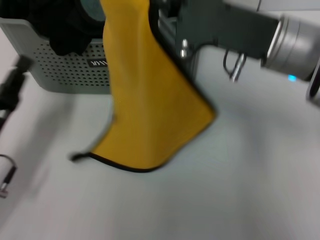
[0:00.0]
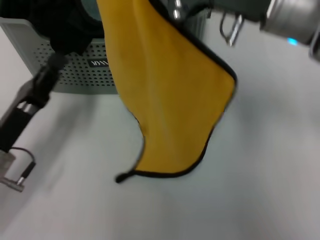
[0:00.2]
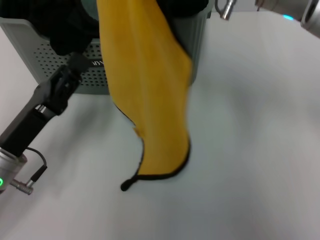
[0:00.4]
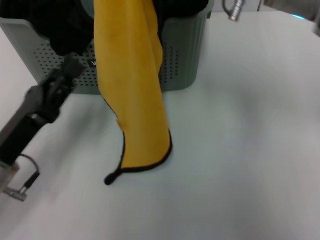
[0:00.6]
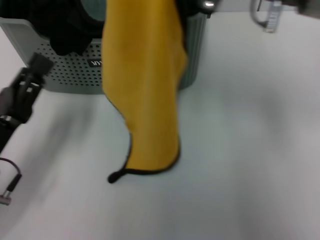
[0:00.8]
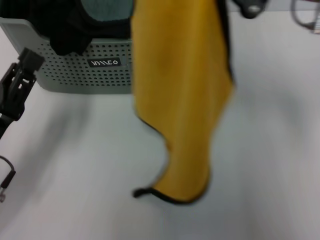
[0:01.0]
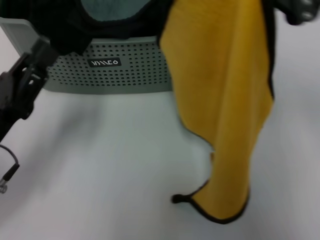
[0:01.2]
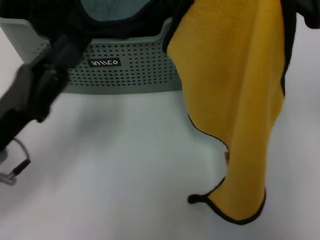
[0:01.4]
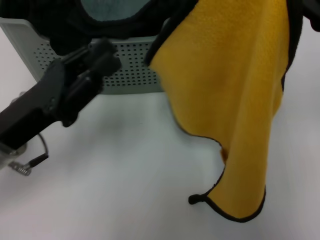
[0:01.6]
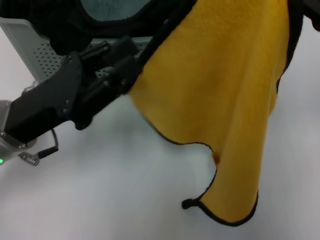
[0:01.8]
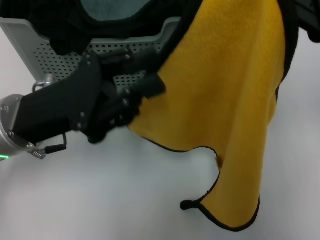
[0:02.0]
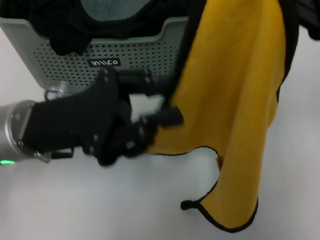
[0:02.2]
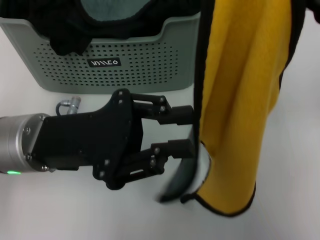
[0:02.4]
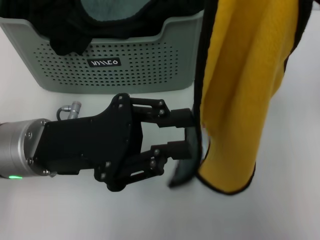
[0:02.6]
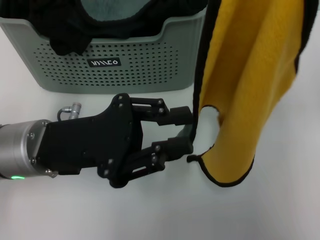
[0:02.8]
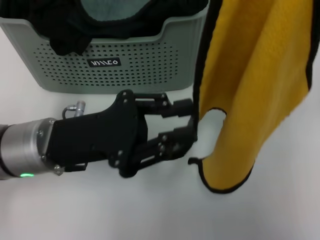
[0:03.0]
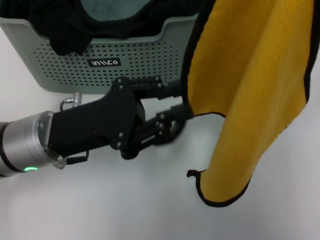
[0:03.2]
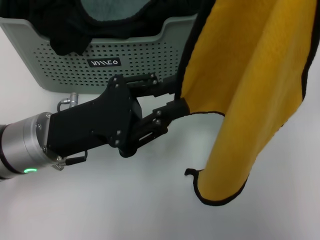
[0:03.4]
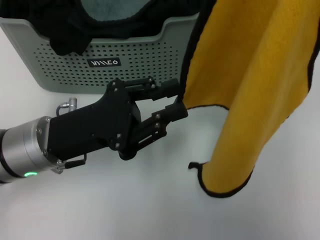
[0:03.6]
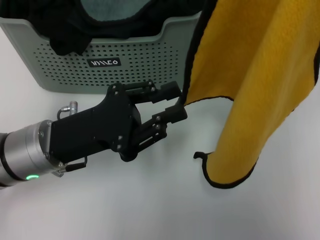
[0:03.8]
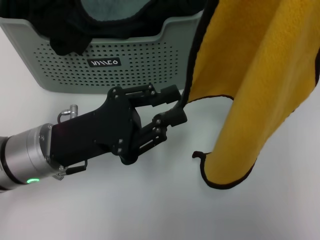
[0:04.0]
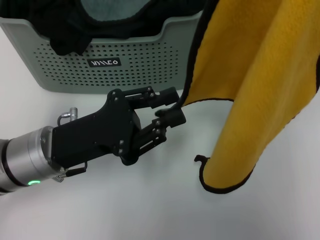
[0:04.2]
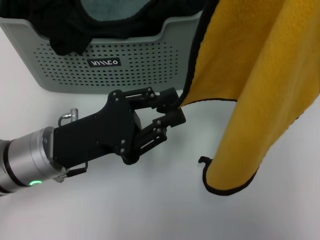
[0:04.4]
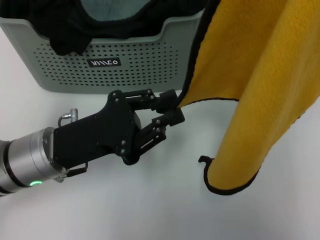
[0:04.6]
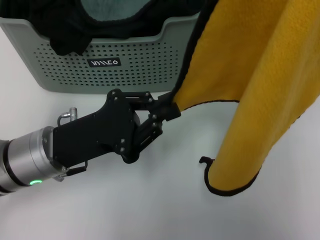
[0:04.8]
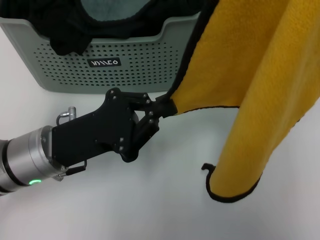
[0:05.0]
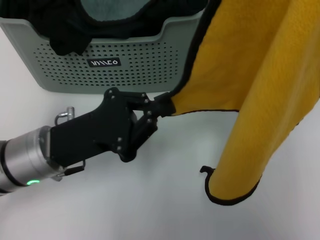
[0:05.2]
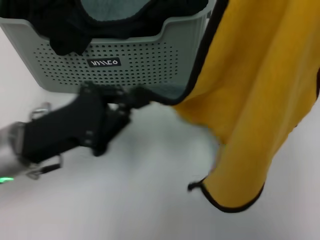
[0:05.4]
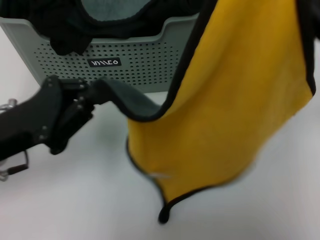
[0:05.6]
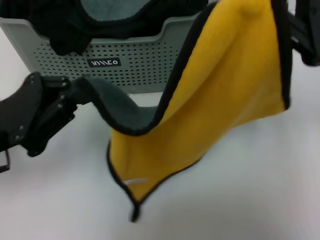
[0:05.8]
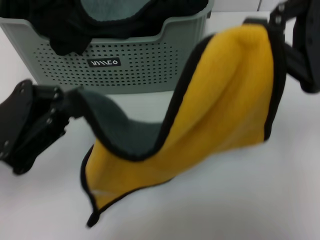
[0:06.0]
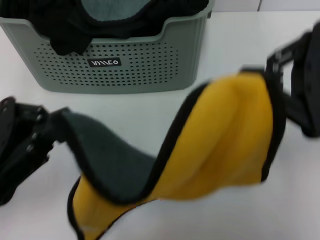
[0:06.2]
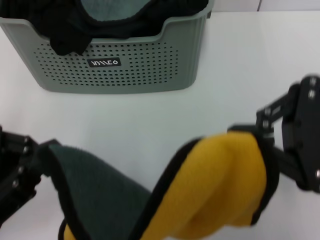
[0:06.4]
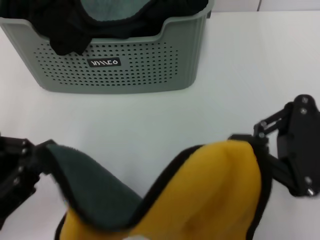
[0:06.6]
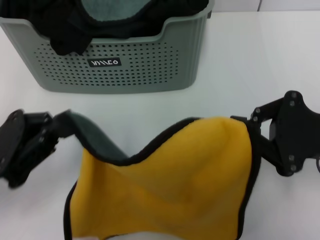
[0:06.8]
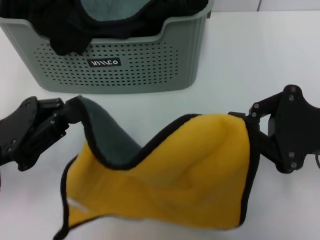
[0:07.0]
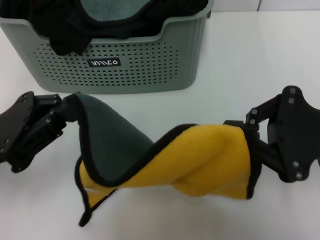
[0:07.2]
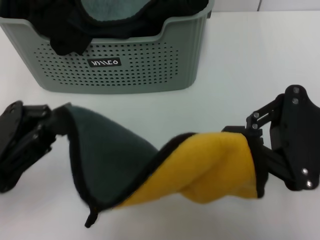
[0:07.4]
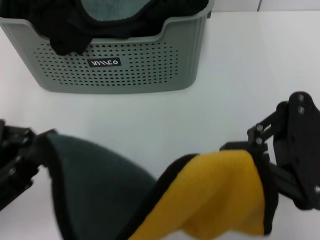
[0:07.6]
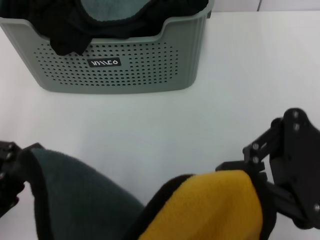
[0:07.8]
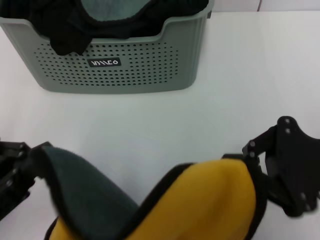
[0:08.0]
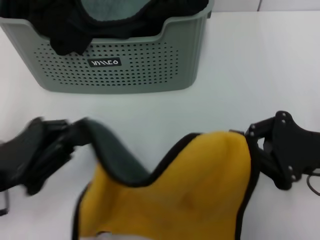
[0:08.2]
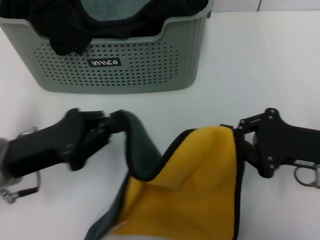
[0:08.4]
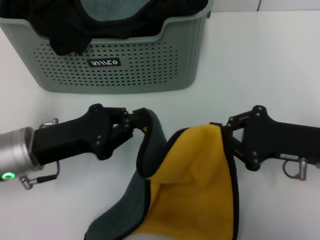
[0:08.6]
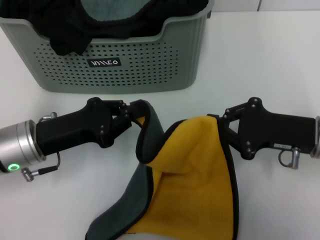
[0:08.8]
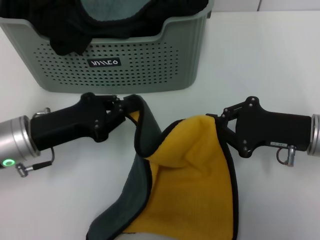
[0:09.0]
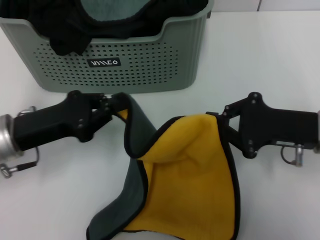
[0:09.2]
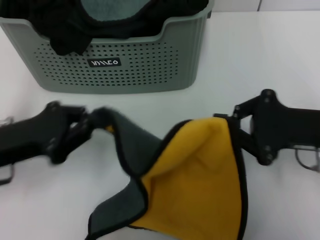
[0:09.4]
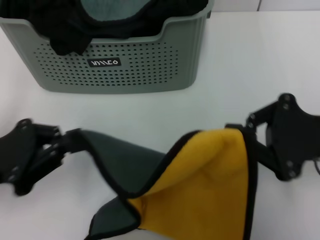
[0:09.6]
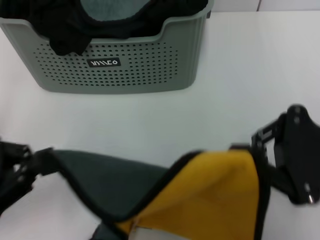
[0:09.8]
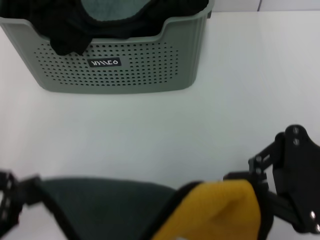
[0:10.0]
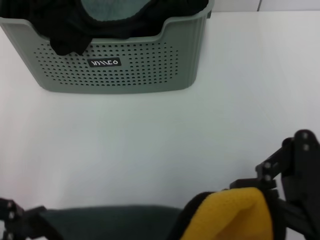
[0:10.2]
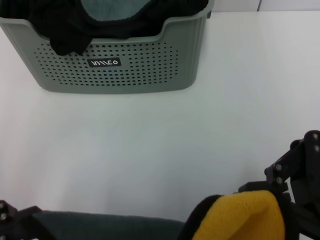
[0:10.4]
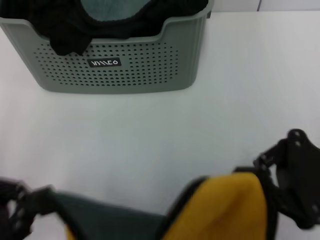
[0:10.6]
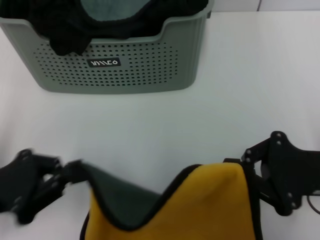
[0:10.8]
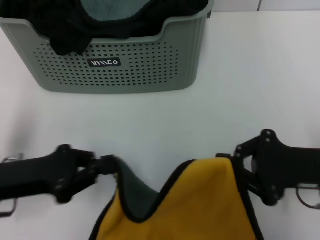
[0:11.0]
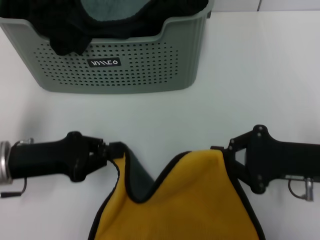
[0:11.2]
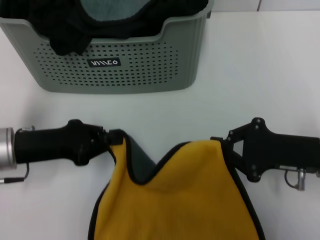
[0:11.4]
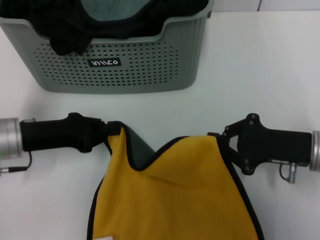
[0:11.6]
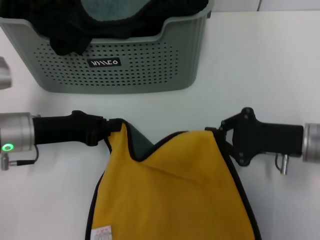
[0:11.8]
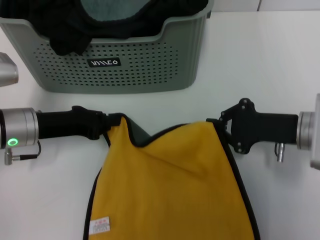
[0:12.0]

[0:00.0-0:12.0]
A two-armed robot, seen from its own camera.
Task of the whole recording: pick up the towel from the storage box and lay it flat on the table.
0:00.0 to 0:01.6: The left gripper shifts approximately 5 cm upward; the right gripper travels upward and to the right by some 15 cm.
0:03.0 to 0:04.4: The grippers move only a little.
0:04.4 to 0:06.0: The right gripper goes approximately 10 cm downward, while the left gripper travels to the left and upward by some 10 cm, and closes.
0:06.0 to 0:07.6: The right gripper heads backward and downward, covering some 5 cm. Meanwhile the left gripper goes forward and backward, about 5 cm each way, reversing 2 times.
0:07.6 to 0:09.0: The left gripper travels forward and downward by approximately 15 cm. Meanwhile the right gripper goes about 15 cm downward and forward.
0:09.0 to 0:10.4: The left gripper heads backward and upward, covering roughly 20 cm. The right gripper is displaced upward and backward by approximately 15 cm.
0:10.4 to 0:12.0: The right gripper is displaced forward and downward by some 15 cm. The left gripper goes some 25 cm forward and downward.

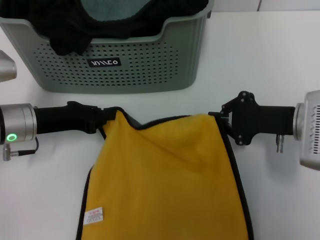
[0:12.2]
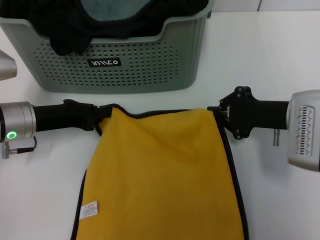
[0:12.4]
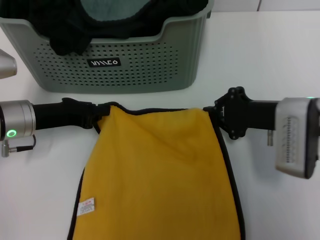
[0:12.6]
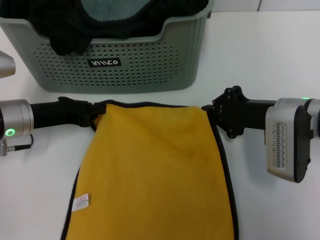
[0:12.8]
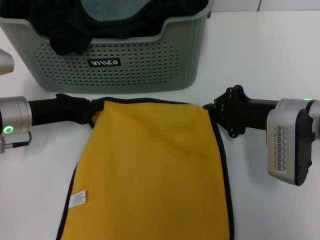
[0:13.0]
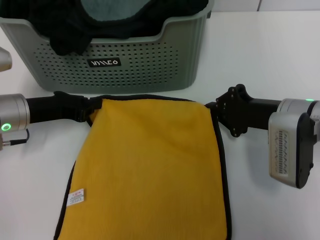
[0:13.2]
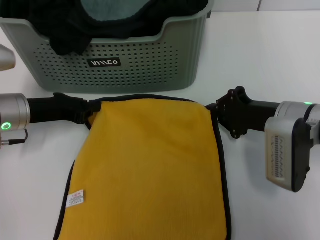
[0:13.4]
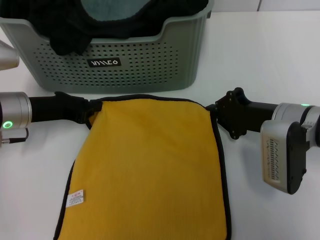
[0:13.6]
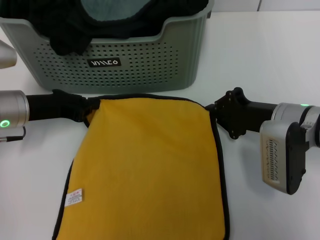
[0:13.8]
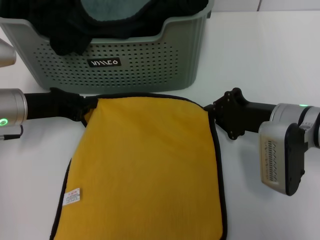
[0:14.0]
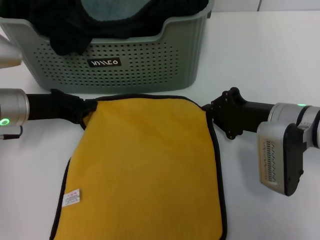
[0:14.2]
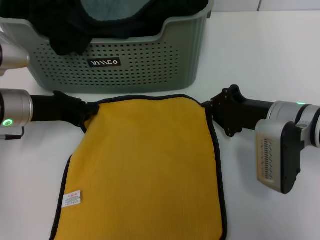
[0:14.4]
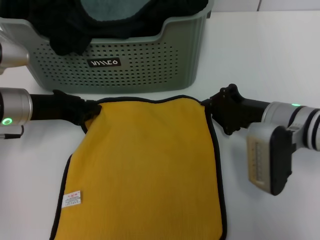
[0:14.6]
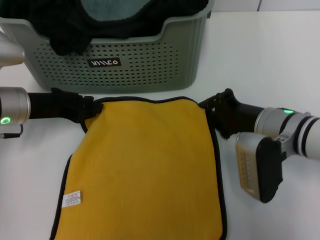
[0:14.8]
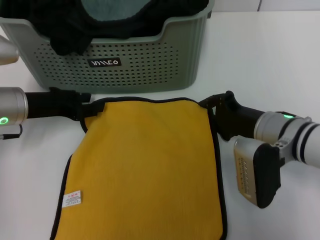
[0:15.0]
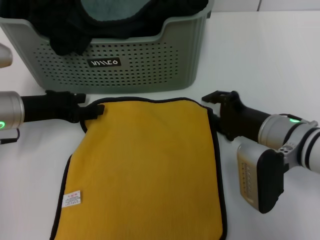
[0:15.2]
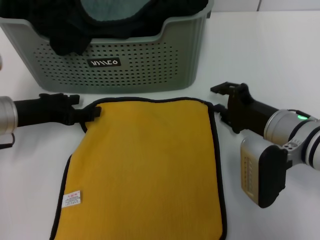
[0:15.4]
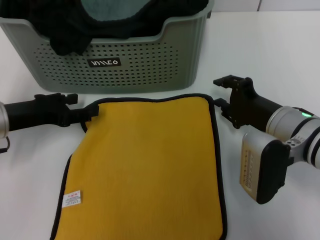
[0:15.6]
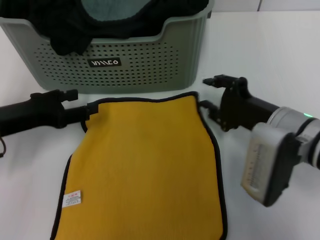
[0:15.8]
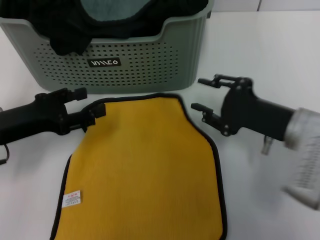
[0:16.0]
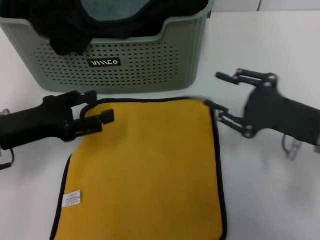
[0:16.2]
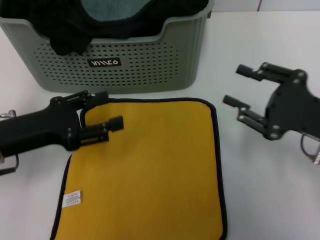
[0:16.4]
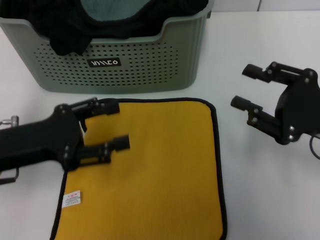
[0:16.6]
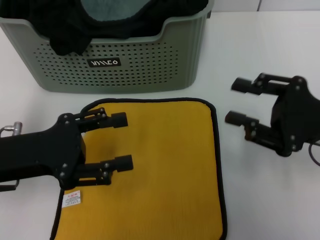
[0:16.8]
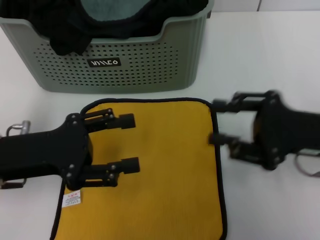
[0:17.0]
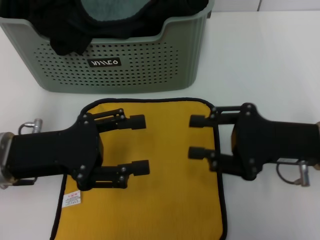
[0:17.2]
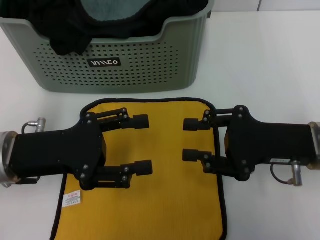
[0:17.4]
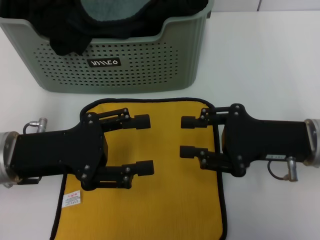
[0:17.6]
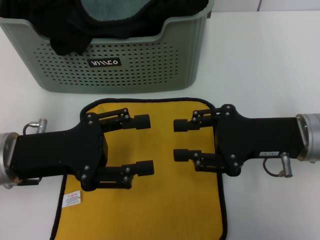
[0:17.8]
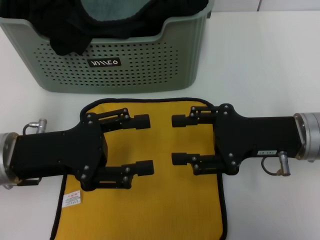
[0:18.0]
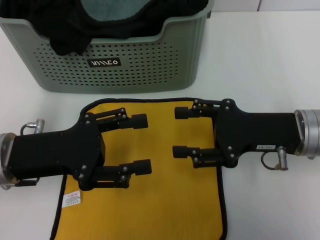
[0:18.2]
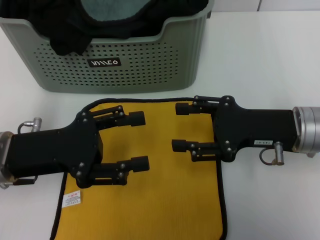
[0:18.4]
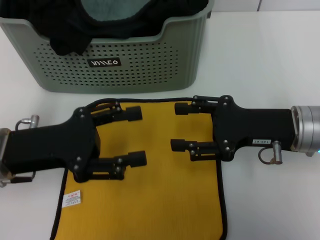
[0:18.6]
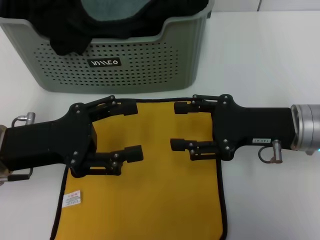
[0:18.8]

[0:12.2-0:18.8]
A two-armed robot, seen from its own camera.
Task of the whole recording: pick up the towel from the storage box and lay it flat on the table.
Step, 0:12.2 to 0:15.4: Spread the towel flat with the right gripper.
0:13.8 to 0:15.4: The left gripper opens its fingers; the right gripper opens up.
0:15.4 to 0:17.2: The left gripper heads backward, covering approximately 10 cm.
0:17.2 to 0:18.8: The grippers make only small movements.
